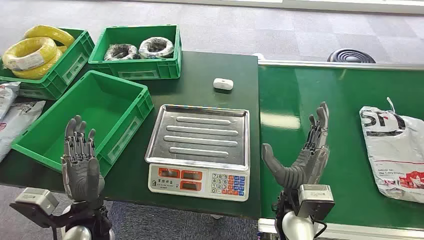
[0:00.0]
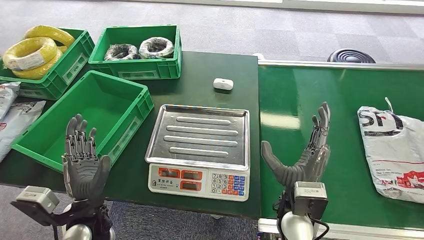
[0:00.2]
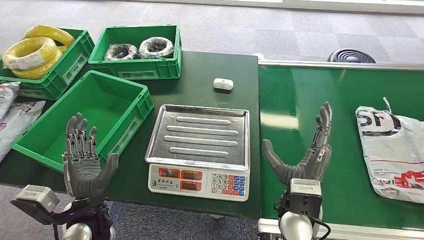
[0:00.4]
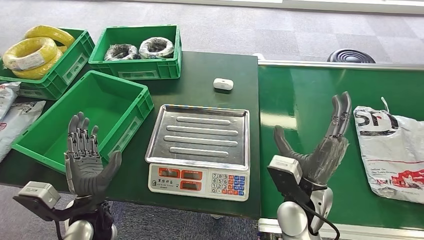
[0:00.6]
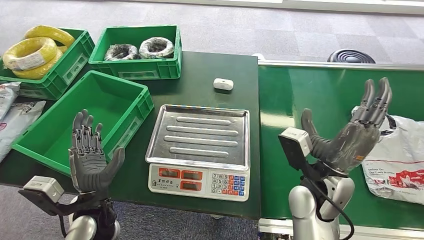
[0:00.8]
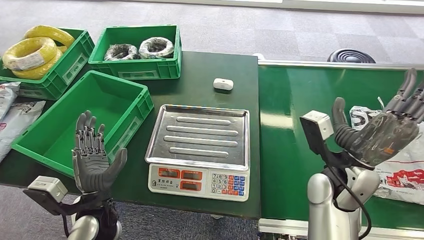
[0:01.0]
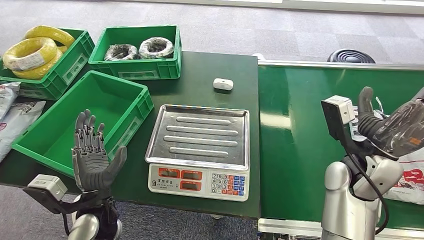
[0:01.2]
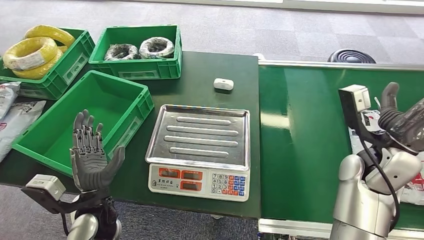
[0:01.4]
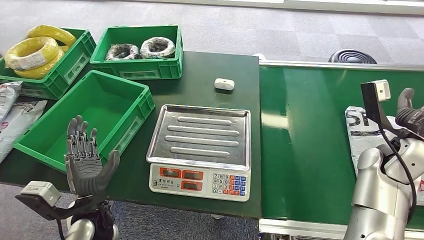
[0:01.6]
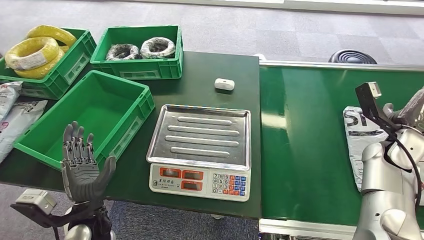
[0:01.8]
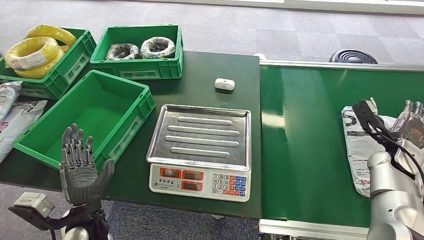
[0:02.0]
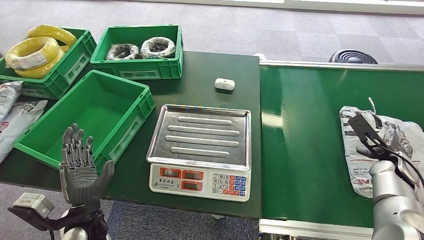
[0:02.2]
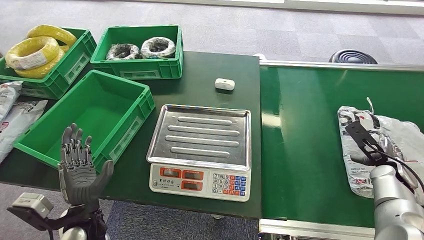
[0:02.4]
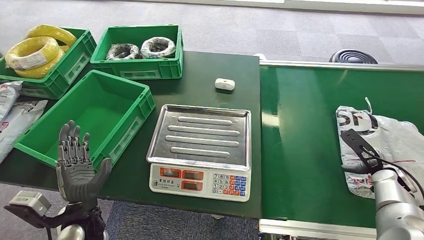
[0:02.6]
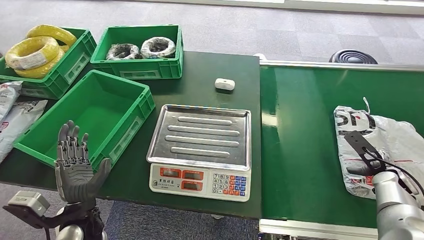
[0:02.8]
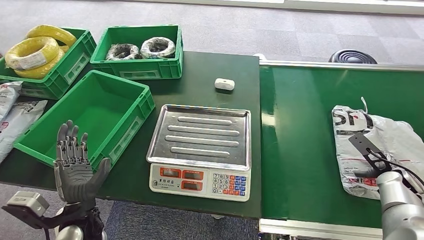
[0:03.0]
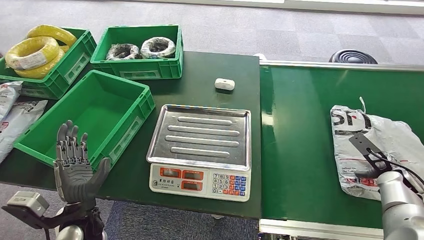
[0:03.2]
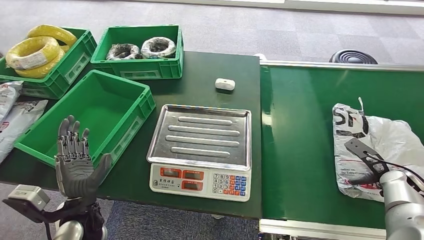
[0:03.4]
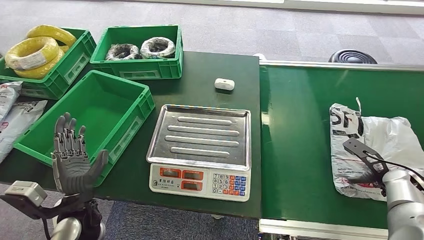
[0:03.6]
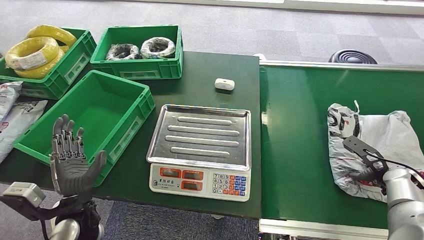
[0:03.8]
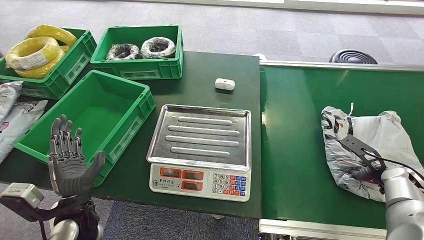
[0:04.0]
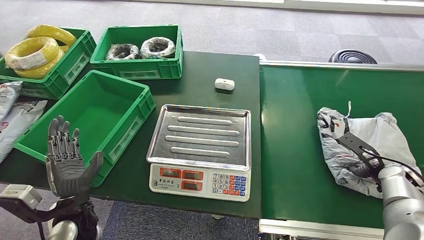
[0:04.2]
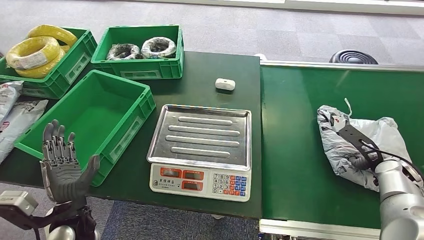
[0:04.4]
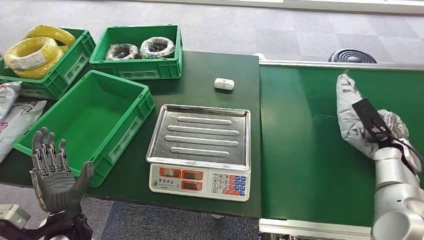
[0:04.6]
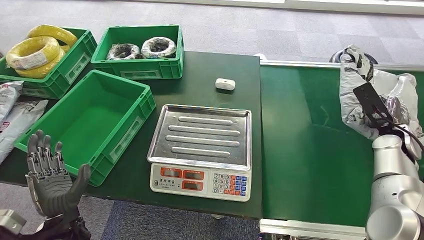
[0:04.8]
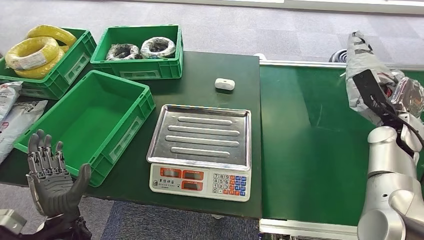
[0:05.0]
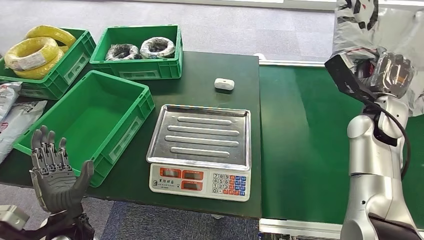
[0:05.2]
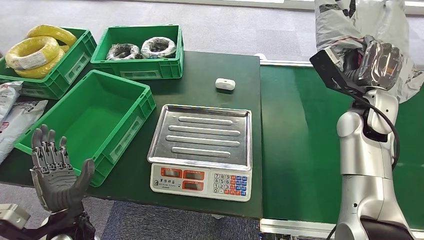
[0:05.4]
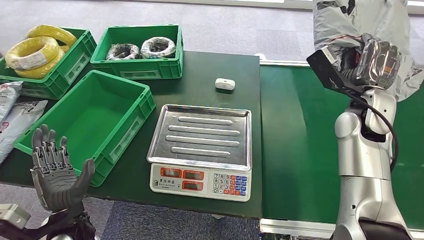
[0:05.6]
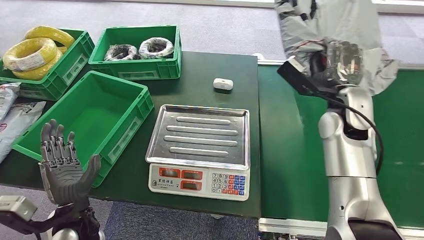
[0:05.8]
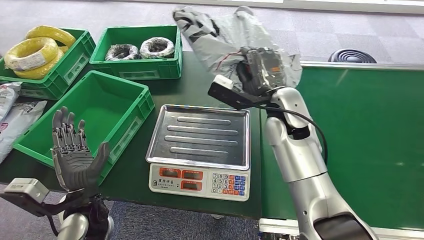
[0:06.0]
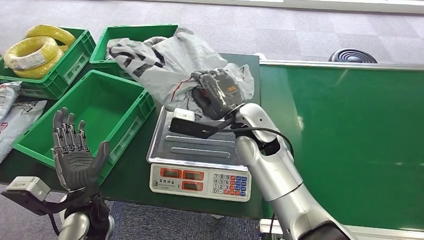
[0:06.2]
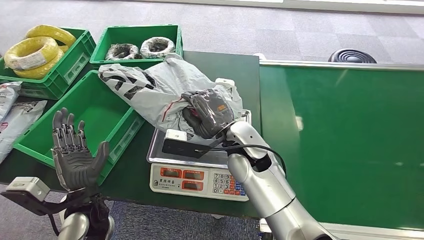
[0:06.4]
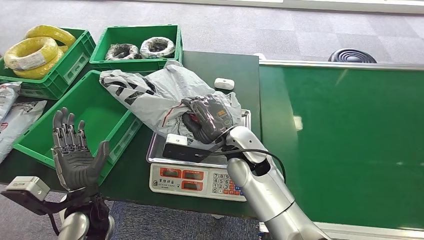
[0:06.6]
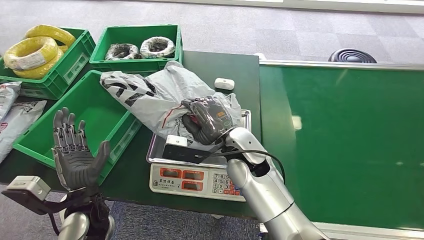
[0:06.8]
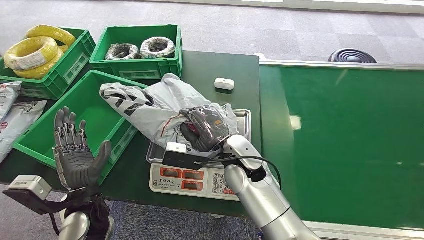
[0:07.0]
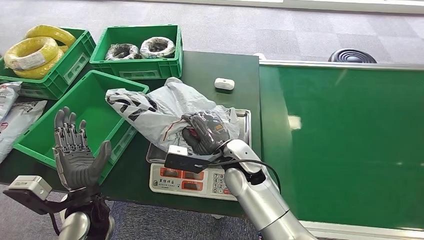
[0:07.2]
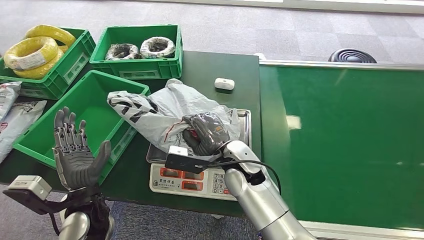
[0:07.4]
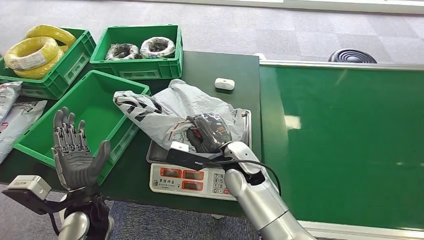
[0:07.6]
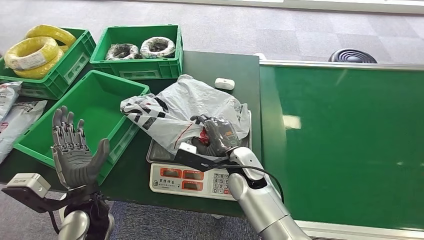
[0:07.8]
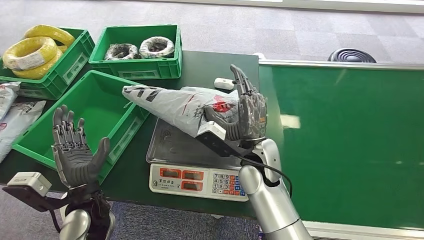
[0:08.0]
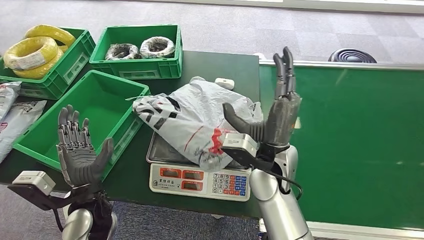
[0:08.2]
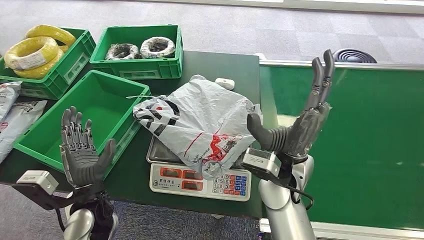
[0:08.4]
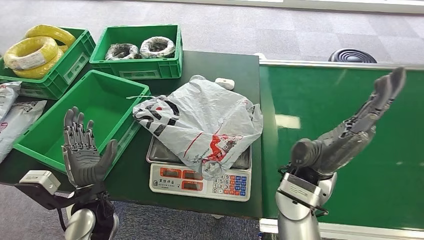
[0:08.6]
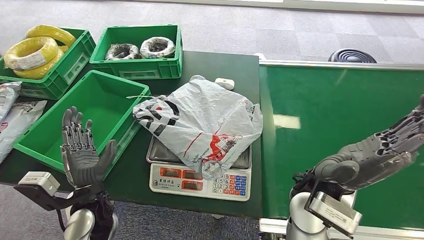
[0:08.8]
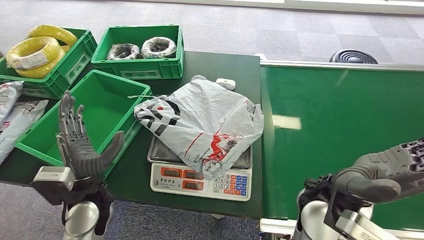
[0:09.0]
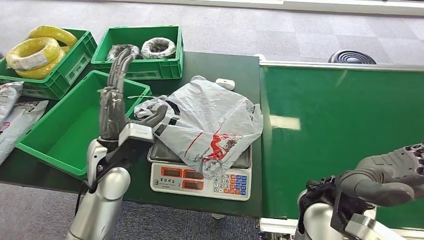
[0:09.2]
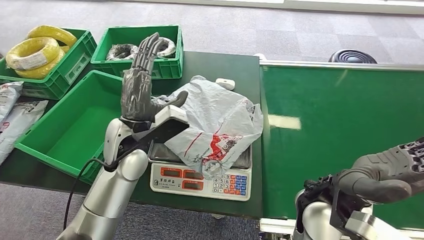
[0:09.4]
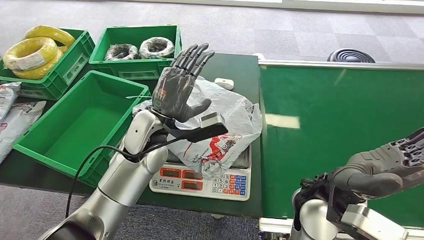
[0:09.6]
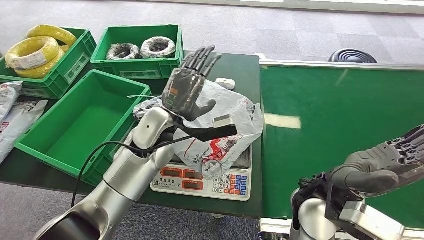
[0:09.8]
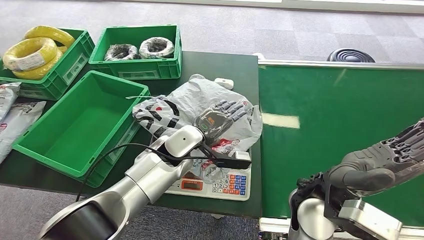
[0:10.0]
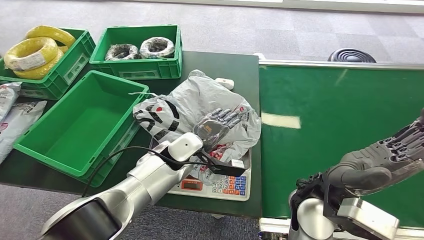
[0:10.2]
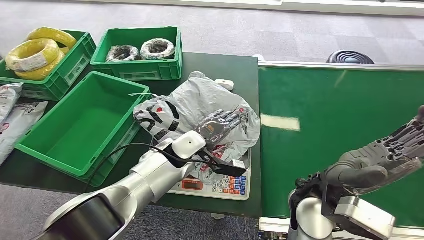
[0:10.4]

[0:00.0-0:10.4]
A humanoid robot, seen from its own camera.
Step, 0:00.0 to 0:04.8: Pick up the package from the conveyor belt.
Step, 0:05.0 to 0:08.6: Place the package onto the inbound machine.
Step, 0:09.0 to 0:10.2: Pick up the package from the inbound machine.
